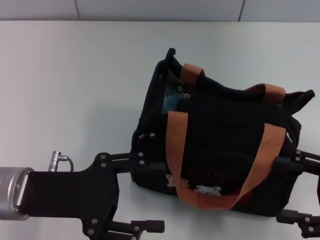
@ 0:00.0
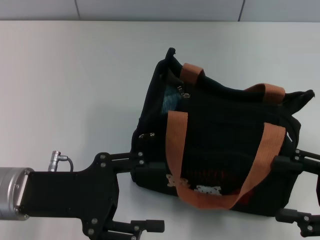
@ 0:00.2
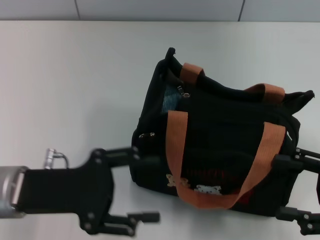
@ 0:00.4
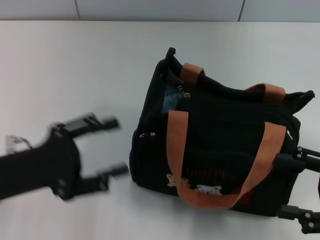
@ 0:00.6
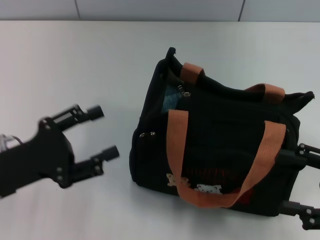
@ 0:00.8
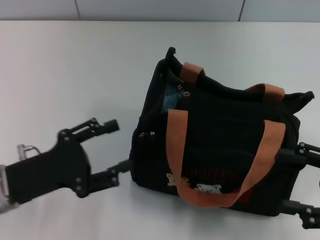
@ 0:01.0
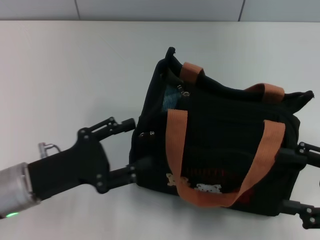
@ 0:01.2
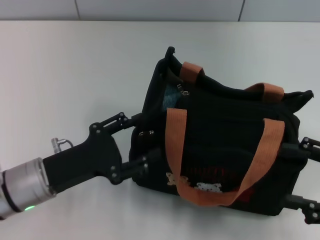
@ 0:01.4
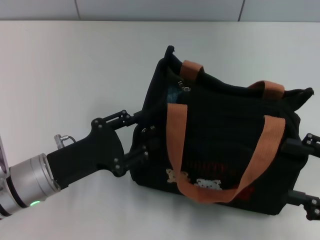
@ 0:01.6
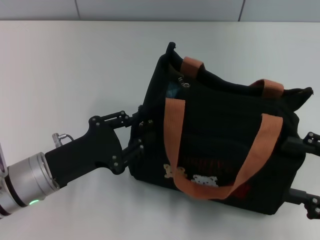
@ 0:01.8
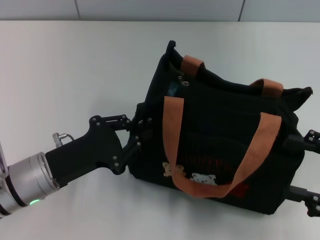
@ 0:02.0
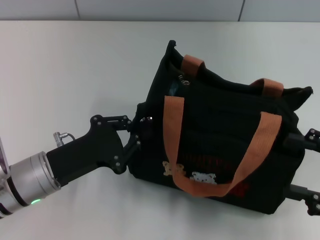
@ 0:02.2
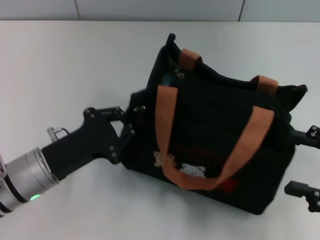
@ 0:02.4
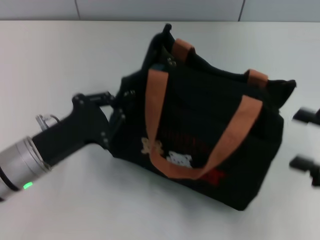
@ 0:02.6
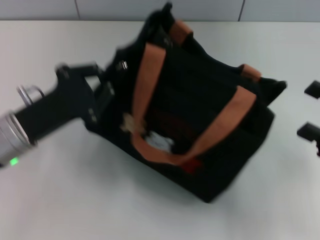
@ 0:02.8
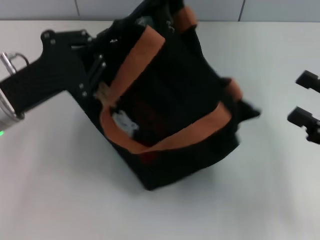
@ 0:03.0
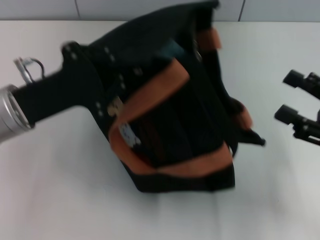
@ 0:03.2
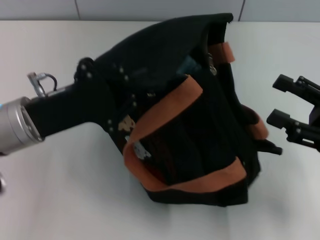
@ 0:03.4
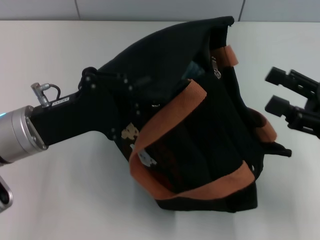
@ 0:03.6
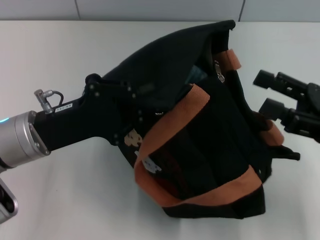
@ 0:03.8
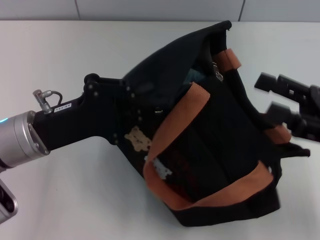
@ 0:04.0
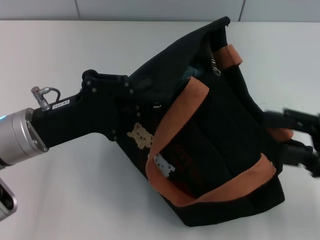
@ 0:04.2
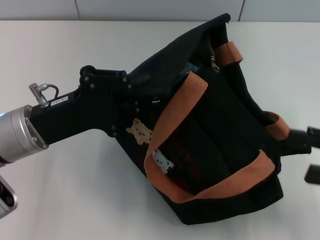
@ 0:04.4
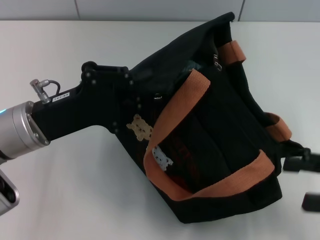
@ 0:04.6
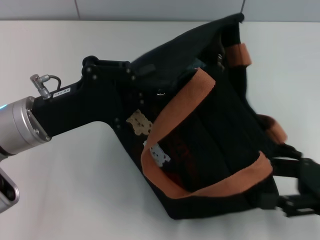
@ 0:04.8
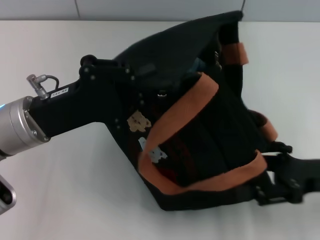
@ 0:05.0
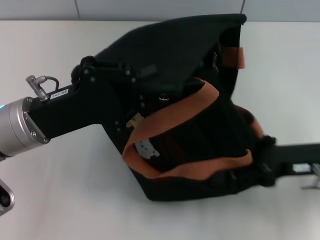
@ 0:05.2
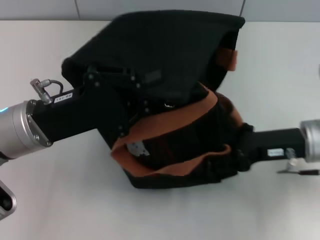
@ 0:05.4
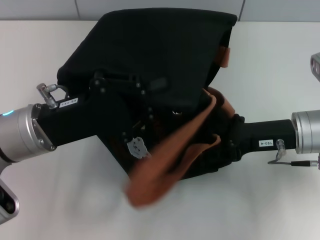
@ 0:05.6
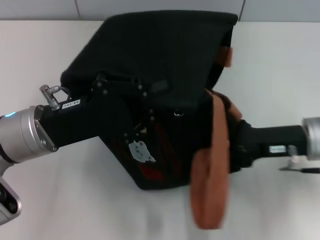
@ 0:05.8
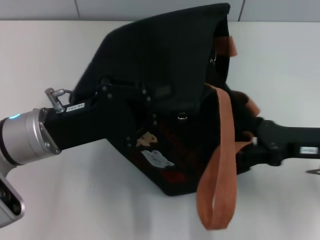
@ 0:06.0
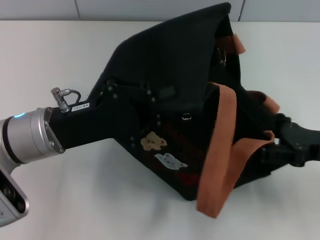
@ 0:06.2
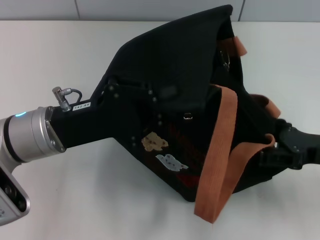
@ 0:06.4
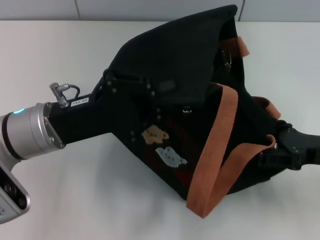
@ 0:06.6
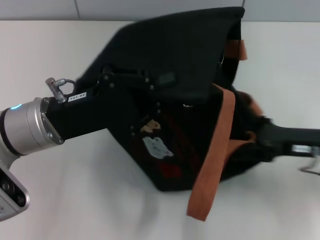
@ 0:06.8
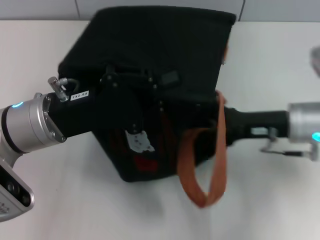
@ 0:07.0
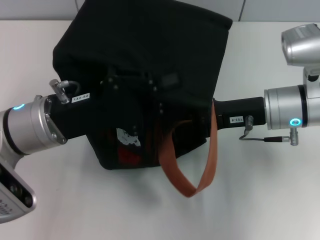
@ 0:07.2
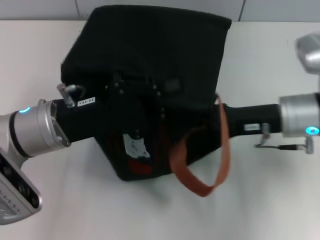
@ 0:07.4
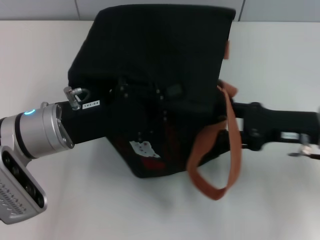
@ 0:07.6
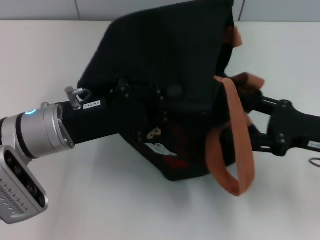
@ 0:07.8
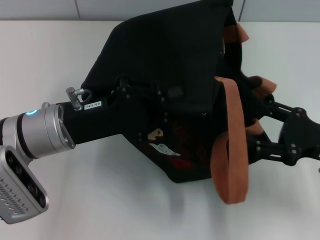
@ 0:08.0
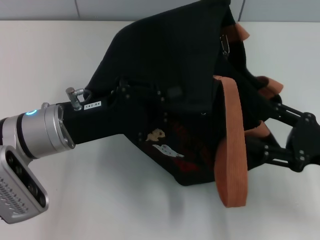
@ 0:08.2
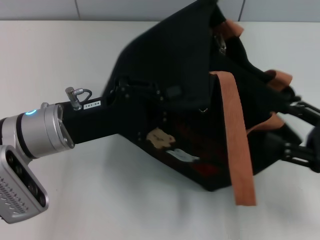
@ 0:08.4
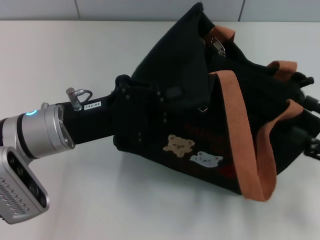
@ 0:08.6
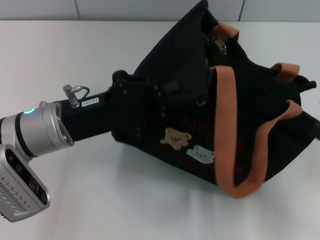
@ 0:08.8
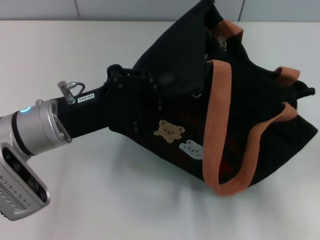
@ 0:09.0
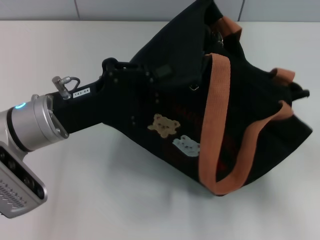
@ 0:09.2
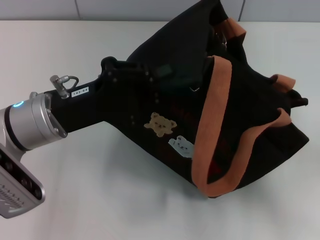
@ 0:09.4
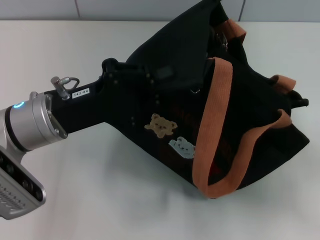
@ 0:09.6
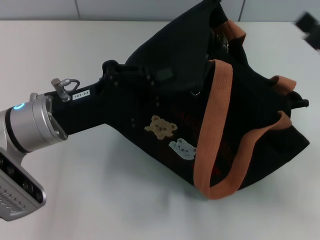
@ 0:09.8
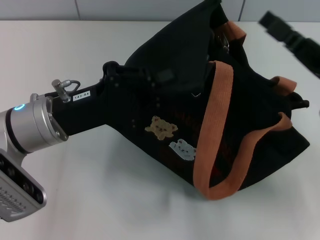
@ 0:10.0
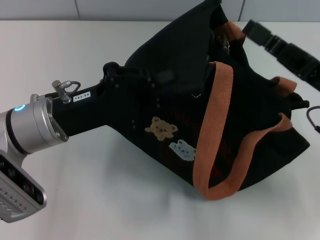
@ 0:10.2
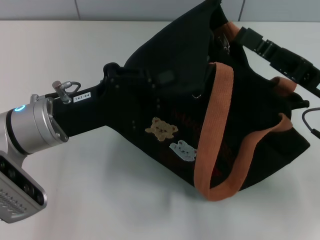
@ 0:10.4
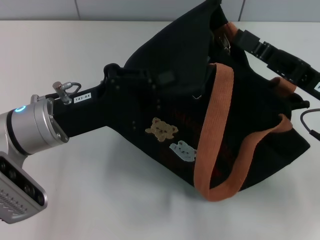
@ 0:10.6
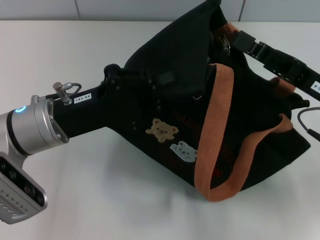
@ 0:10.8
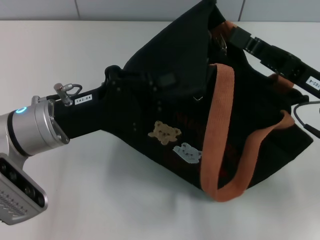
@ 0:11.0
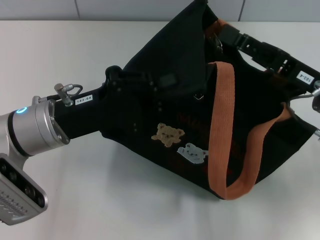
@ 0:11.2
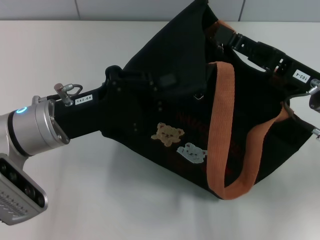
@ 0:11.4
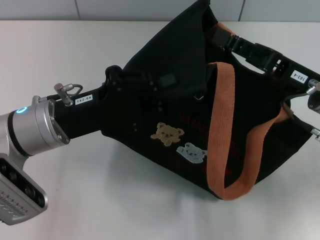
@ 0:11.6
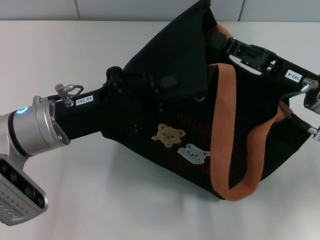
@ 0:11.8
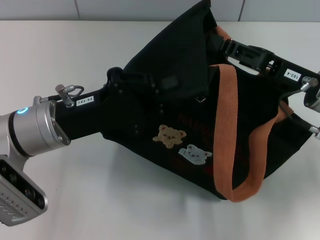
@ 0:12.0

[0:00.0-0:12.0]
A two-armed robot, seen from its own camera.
0:00.0 to 0:01.6: The left gripper goes some 5 cm downward.
0:01.6 to 0:03.0: The left gripper moves upward and forward, roughly 10 cm, and closes up.
0:04.4 to 0:06.0: The right gripper moves to the left and forward, some 10 cm.
0:06.0 to 0:07.6: The right gripper reaches roughly 10 cm to the left, then returns.
0:07.6 to 0:09.0: The right gripper is displaced backward and to the right by about 15 cm.
0:09.0 to 0:10.4: The right gripper shifts roughly 15 cm to the left and forward.
0:10.4 to 0:12.0: The right gripper closes up.

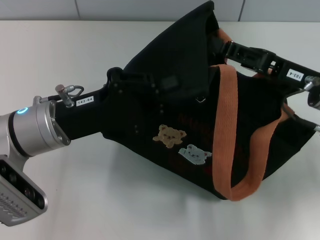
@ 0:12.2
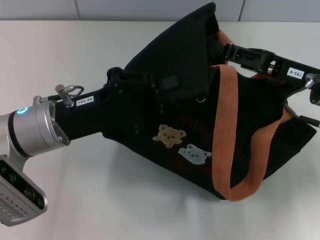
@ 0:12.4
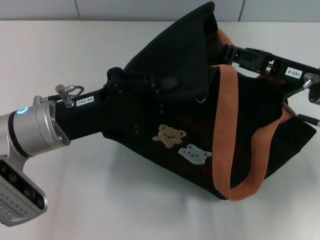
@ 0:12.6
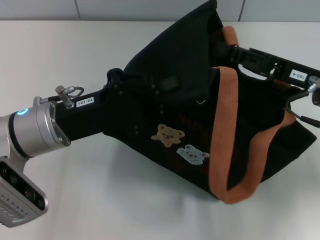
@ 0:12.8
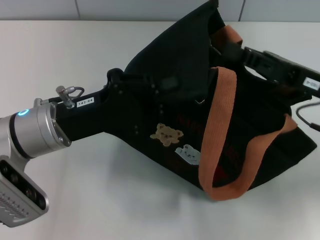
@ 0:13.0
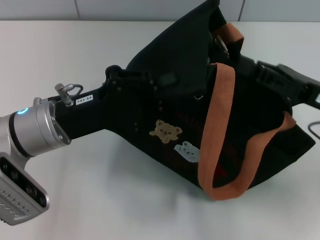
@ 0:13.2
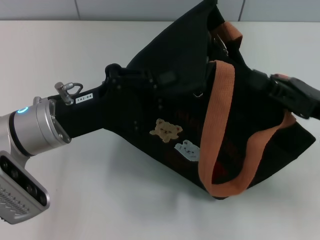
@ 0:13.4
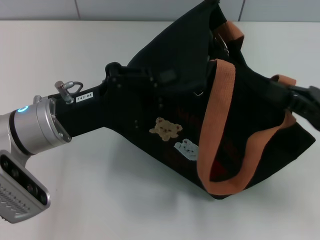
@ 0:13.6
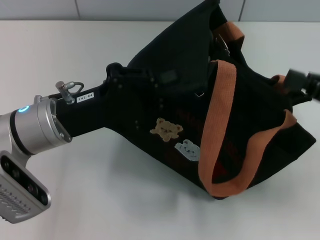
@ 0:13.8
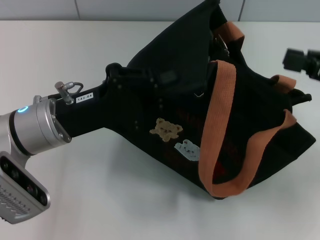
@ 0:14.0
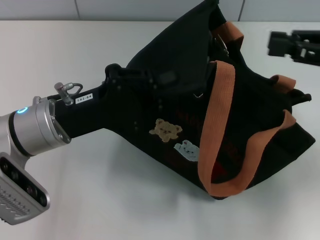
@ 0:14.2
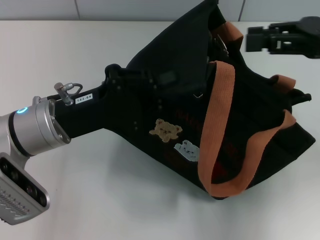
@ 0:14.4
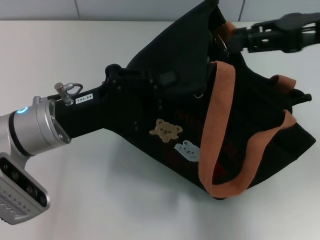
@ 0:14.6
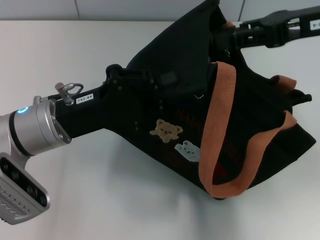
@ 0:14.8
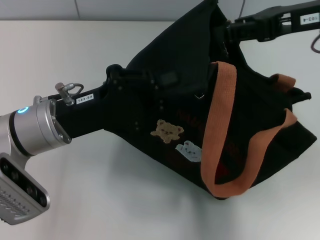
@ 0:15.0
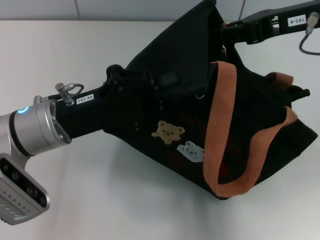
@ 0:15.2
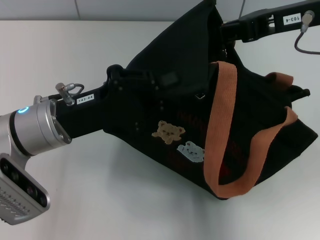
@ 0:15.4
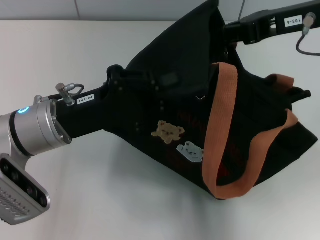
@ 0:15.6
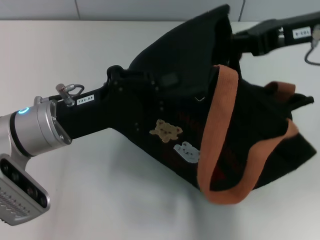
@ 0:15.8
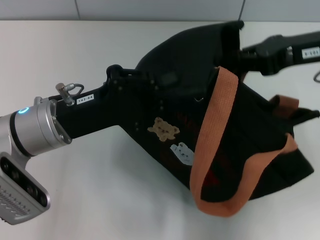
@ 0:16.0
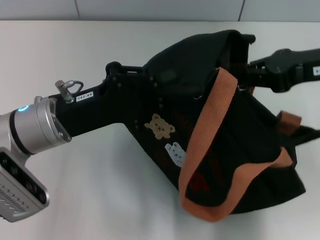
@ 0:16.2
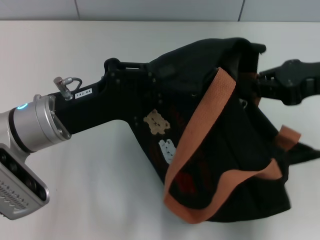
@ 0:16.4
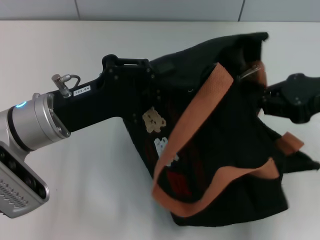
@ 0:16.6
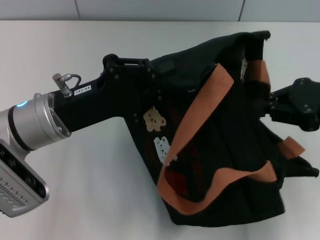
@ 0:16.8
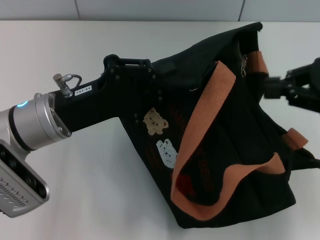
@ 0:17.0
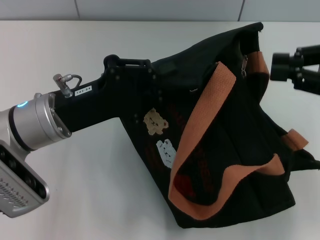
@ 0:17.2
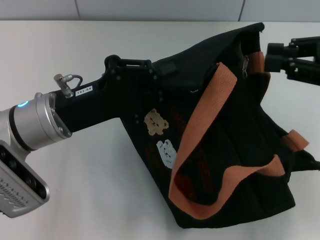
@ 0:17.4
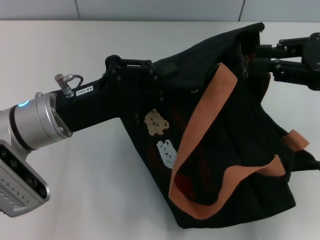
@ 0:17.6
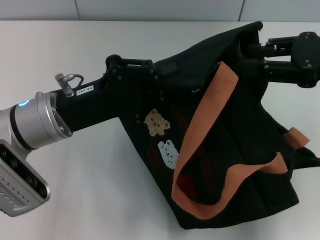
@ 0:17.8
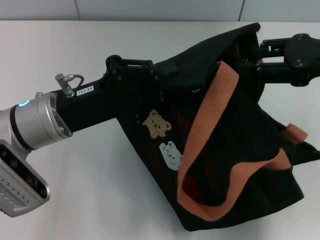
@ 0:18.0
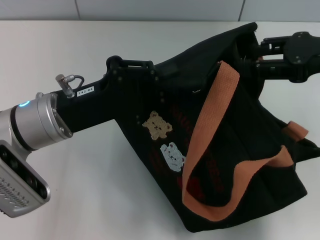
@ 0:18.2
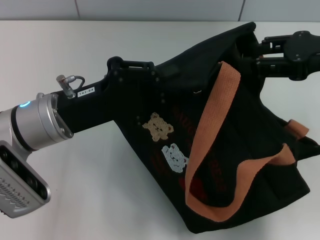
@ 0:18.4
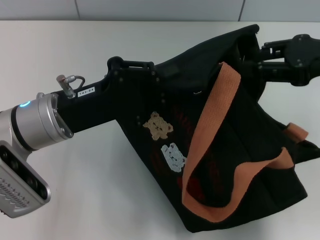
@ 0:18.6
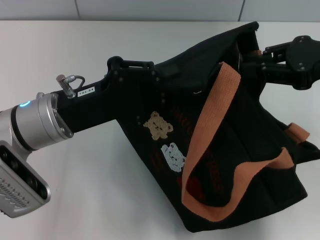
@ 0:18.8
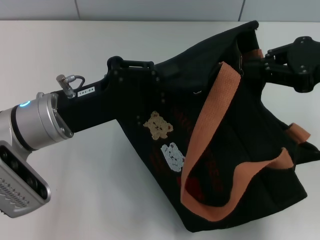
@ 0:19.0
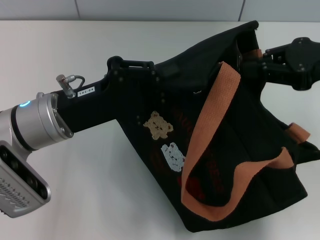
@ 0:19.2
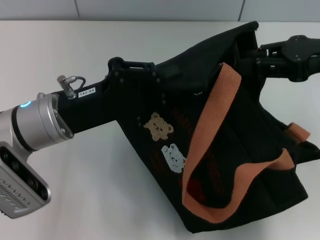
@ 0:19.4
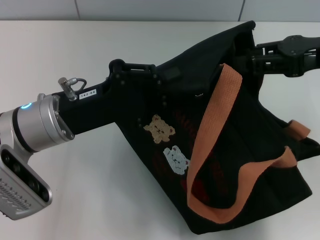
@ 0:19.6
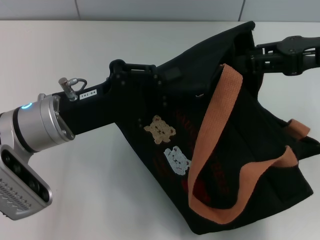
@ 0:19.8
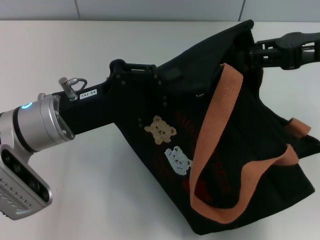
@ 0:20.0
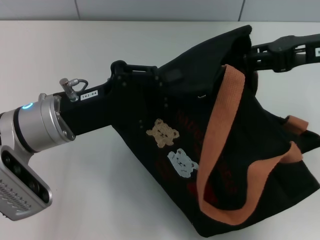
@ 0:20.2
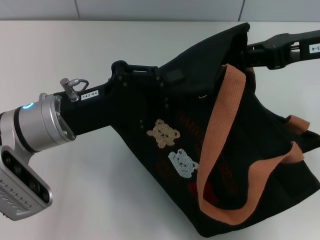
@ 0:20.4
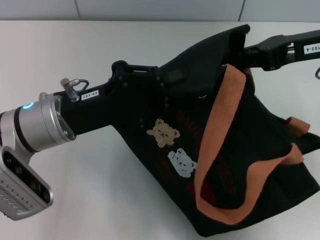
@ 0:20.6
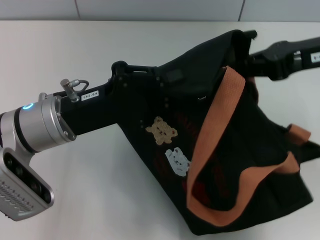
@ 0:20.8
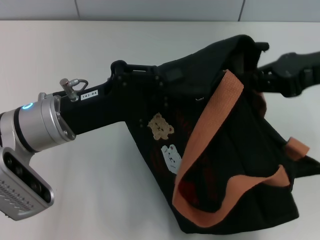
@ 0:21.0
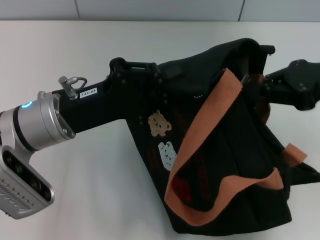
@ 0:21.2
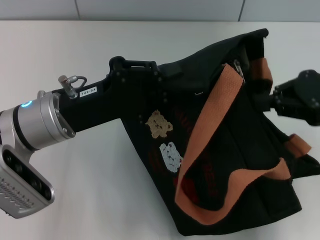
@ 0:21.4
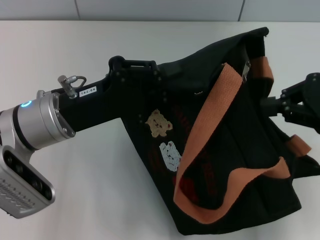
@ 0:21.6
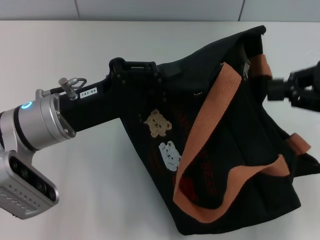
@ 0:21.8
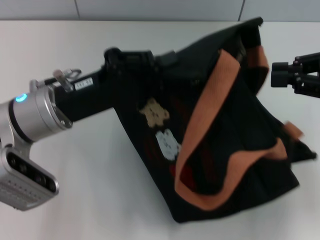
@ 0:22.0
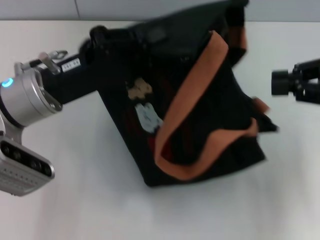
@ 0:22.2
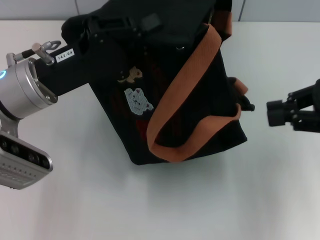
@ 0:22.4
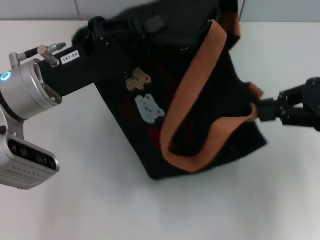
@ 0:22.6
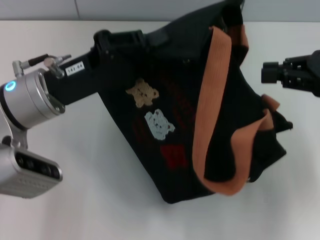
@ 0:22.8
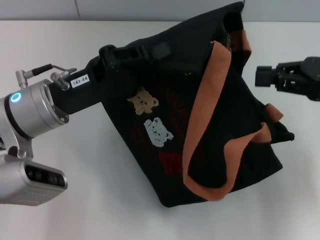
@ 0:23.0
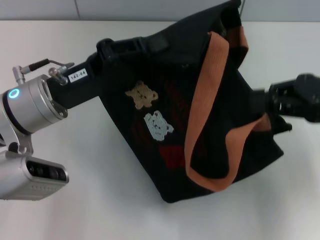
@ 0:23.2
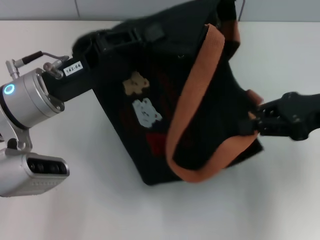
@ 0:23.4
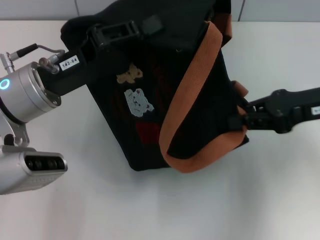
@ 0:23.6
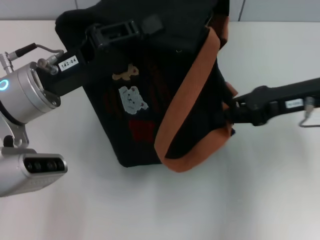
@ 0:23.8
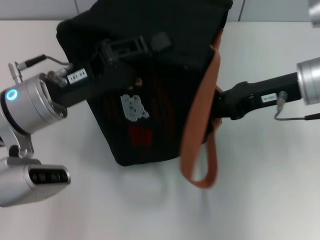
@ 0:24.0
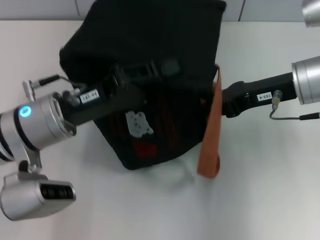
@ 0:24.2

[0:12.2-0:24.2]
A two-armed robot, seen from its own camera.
0:12.2 to 0:13.8: The right gripper heads to the right and backward, covering about 10 cm.
0:13.8 to 0:15.2: The right gripper goes about 15 cm upward, to the left and forward, and opens its fingers.
0:15.2 to 0:16.6: The right gripper goes some 10 cm backward, to the right and downward, and closes.
0:16.6 to 0:18.2: The right gripper opens its fingers.
0:18.2 to 0:19.8: The grippers make only small movements.
0:19.8 to 0:21.2: The right gripper closes up.
0:22.6 to 0:24.2: The right gripper is displaced to the left, forward and downward by approximately 10 cm.
